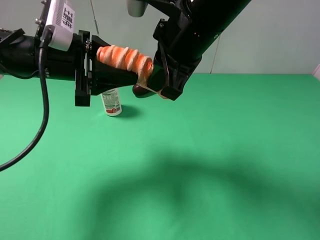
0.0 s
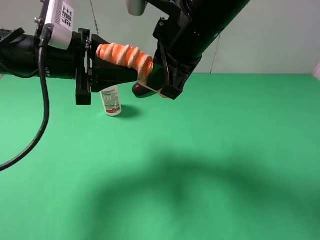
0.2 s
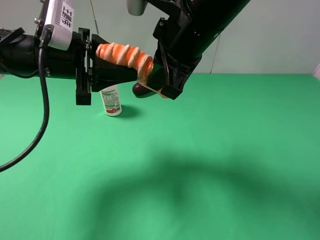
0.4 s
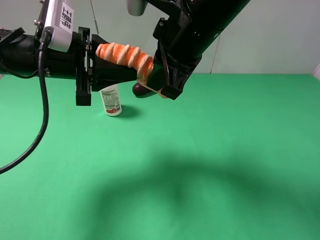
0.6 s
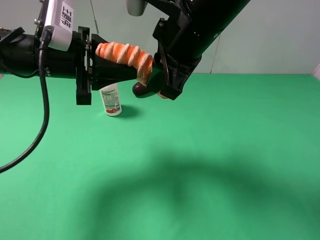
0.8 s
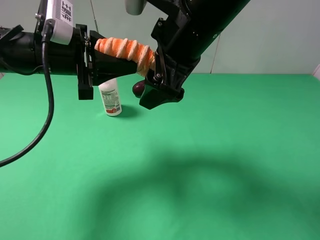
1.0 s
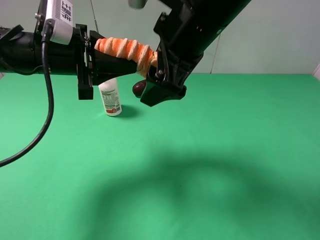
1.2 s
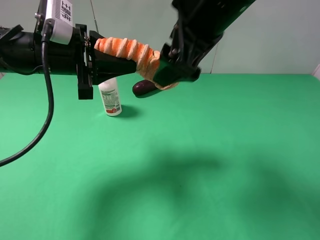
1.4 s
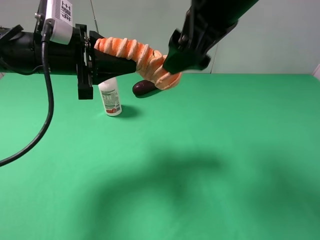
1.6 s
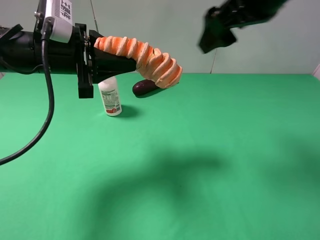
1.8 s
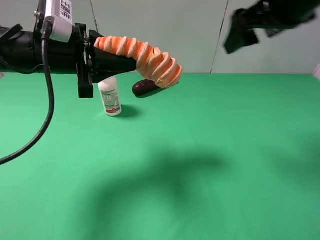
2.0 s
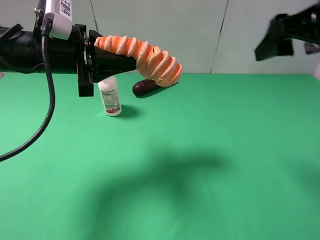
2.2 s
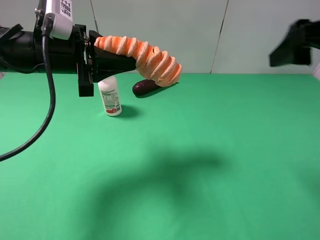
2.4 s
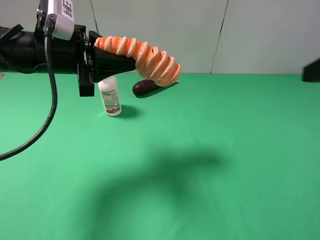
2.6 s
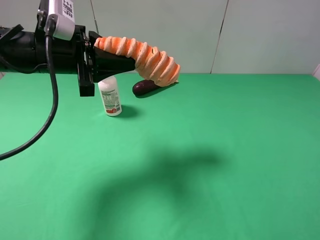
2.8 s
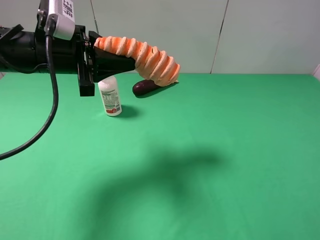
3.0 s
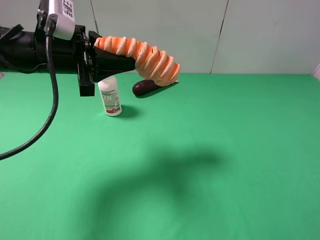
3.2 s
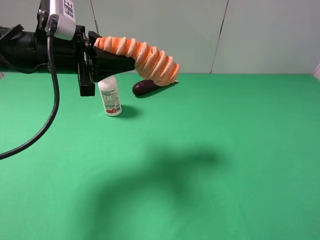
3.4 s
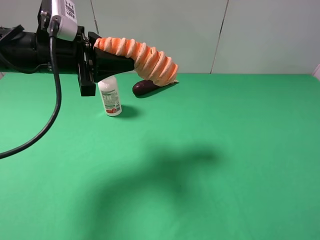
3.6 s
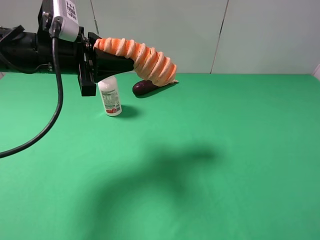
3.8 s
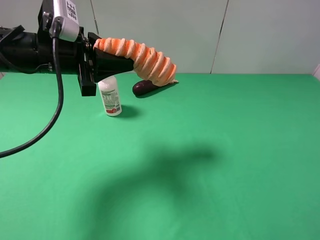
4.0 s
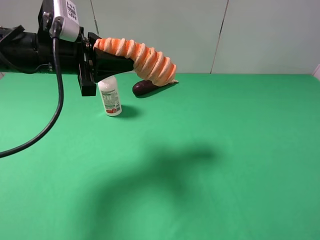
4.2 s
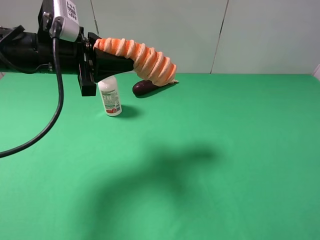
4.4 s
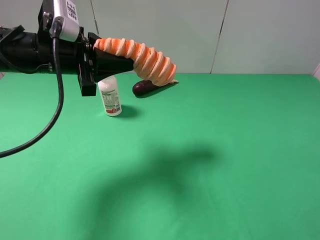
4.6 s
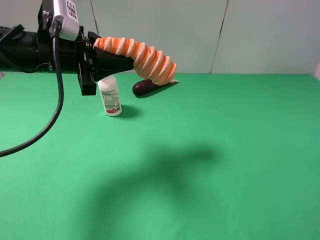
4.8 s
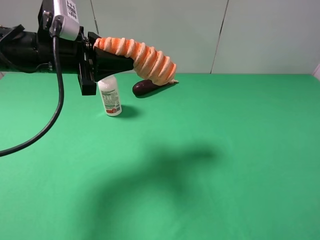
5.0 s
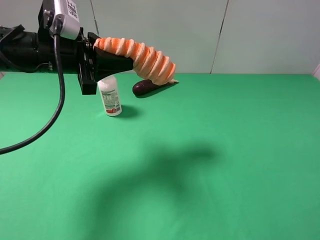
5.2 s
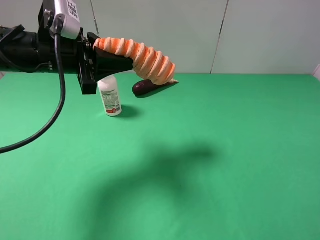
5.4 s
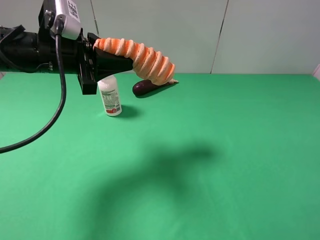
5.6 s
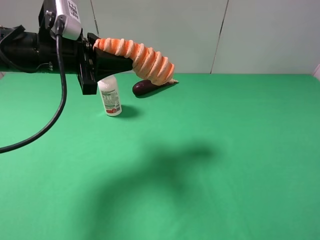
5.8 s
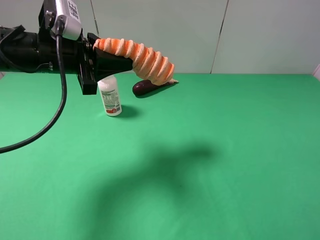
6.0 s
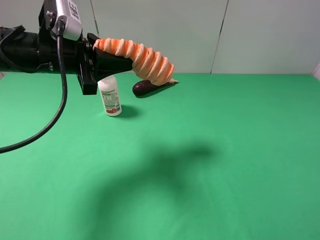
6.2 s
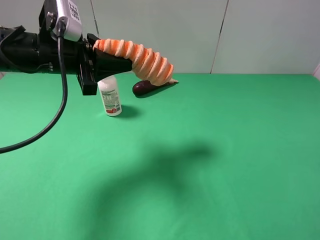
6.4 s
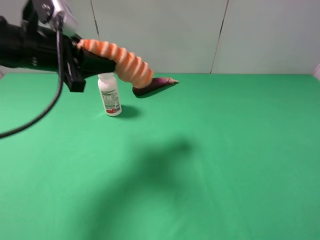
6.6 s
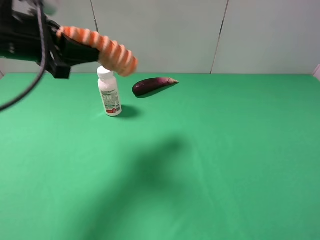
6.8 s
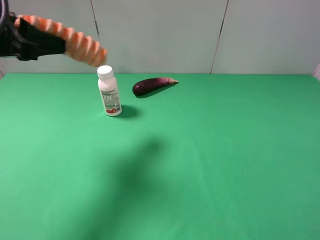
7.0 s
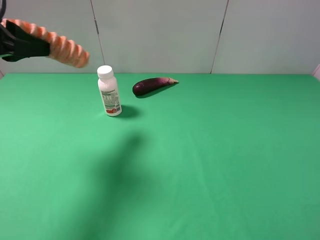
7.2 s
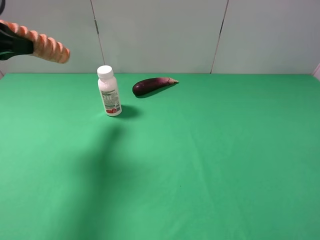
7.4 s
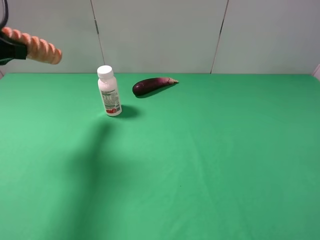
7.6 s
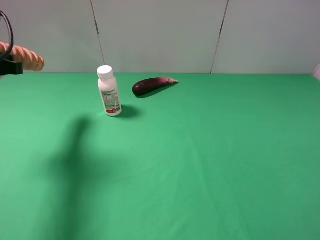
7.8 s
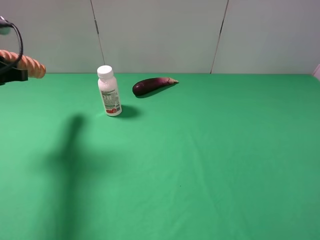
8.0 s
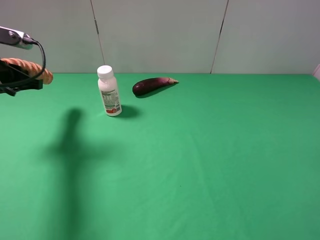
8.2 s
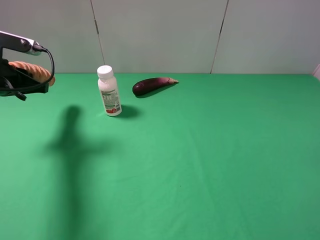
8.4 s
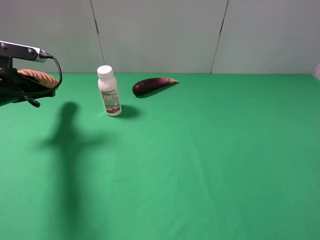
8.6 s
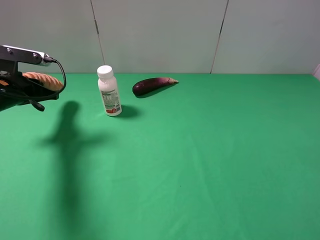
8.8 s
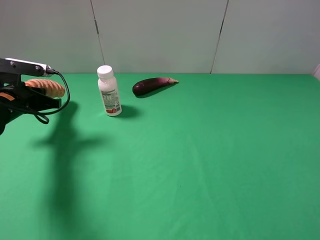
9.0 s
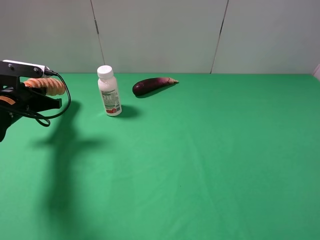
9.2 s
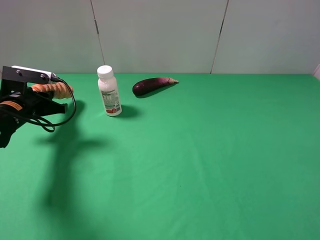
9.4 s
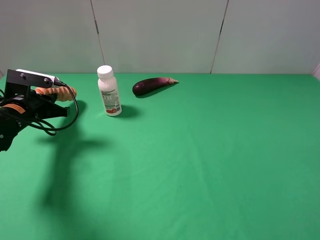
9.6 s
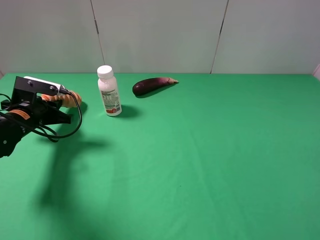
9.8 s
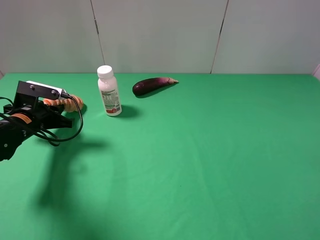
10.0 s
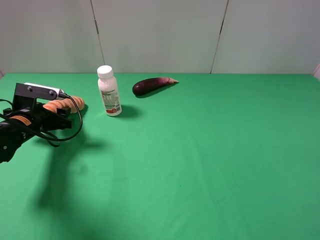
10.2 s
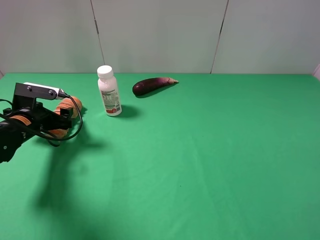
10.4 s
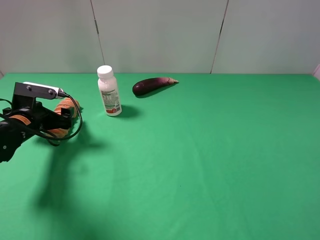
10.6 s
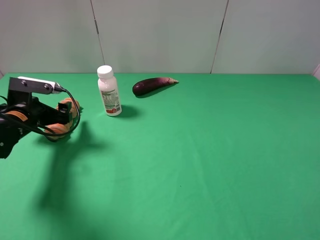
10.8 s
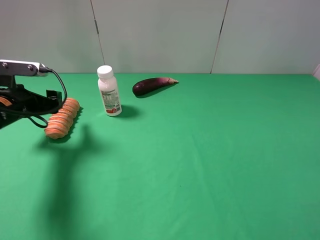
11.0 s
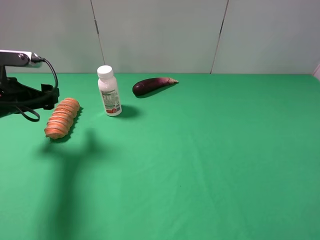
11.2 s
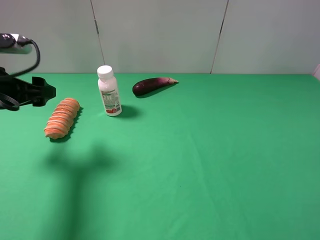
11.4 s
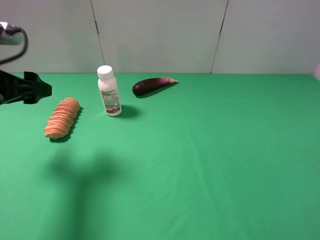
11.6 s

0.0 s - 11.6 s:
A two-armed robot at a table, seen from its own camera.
Task of the whole recording: use the right gripper to pick up the item and transfer it from the right gripper to the left gripper.
Step, 1.4 s - 10.8 s: The left gripper places bread on the left side of the table.
0.0 s - 1.4 s: The right gripper opens its fingers.
1.4 s - 2.8 s: The right gripper goes roughly 25 cm to the right and backward.
2.8 s - 4.4 s: The right gripper goes some 10 cm downward and backward.
5.8 s - 7.2 s: The left gripper is displaced to the left and upward by approximately 10 cm.
7.2 s - 8.8 s: The left gripper travels downward by some 15 cm.
8.8 s - 10.2 s: The left gripper is displaced downward by some 5 cm, and opens.
10.2 s - 11.6 s: The left gripper goes roughly 15 cm upward.

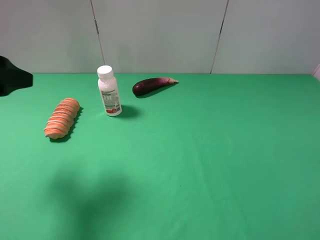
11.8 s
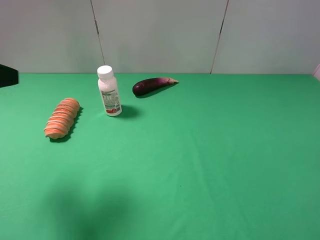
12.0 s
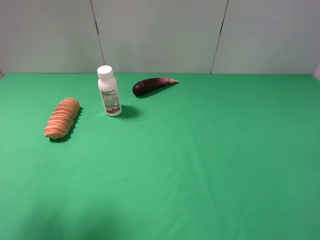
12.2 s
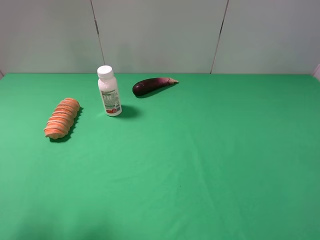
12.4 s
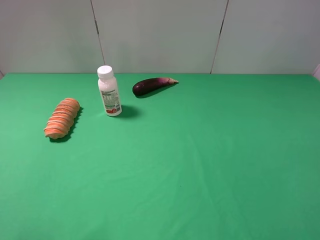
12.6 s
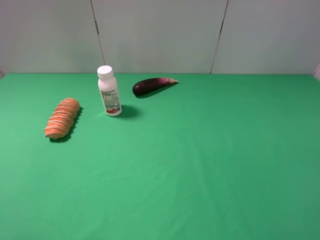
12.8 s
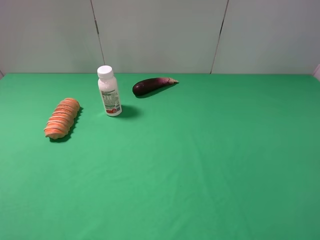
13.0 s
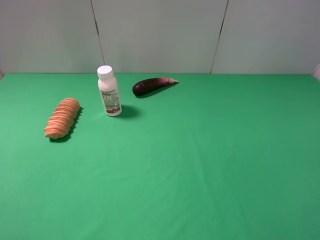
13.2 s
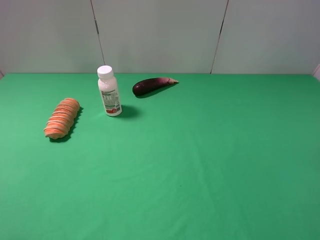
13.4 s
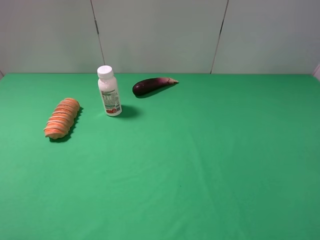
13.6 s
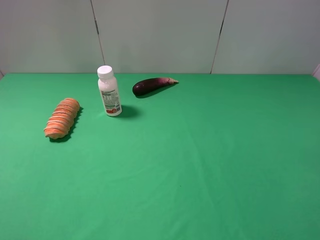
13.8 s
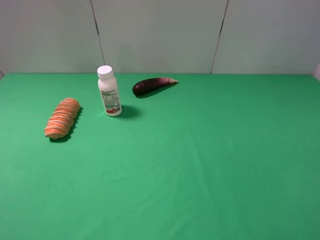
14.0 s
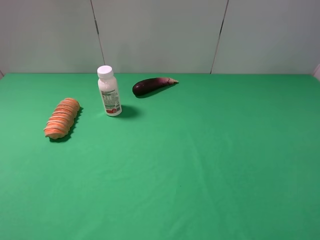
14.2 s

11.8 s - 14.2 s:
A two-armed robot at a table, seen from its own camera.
Task of the whole recording: use the right gripper to pick up the item and transfer it from the right gripper to the left gripper.
11.8 s - 13.0 s: The left gripper travels backward by approximately 15 cm.
